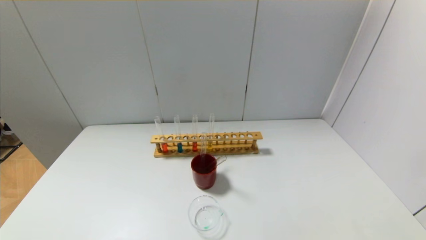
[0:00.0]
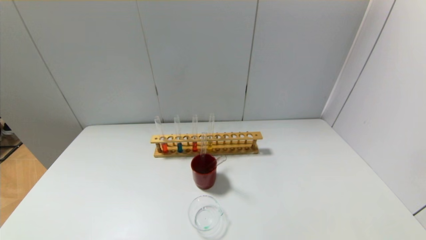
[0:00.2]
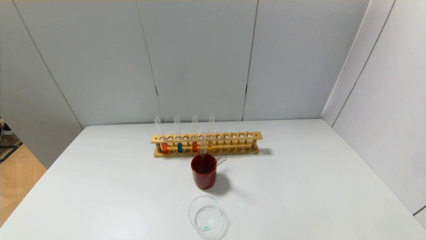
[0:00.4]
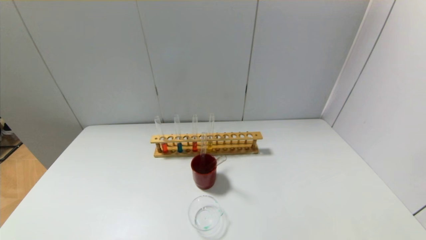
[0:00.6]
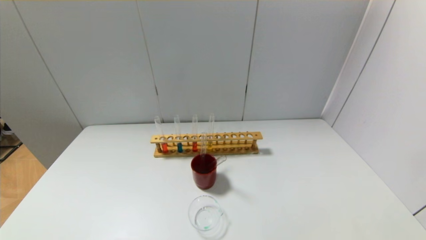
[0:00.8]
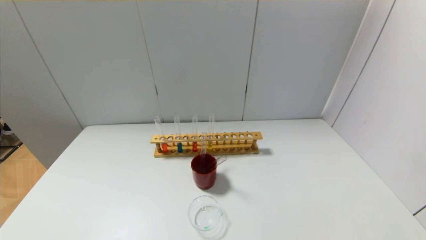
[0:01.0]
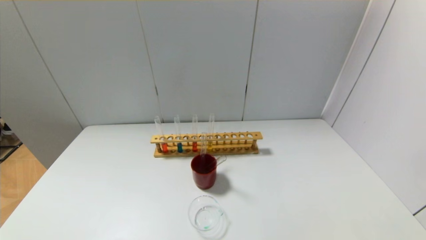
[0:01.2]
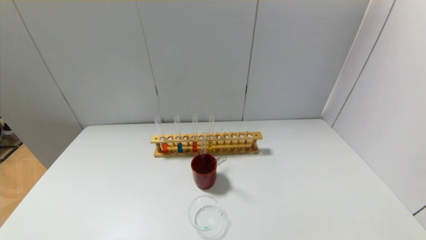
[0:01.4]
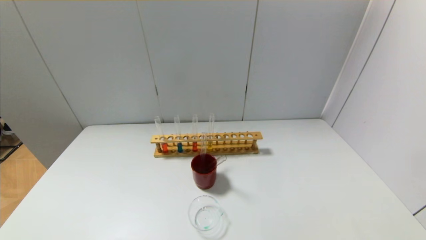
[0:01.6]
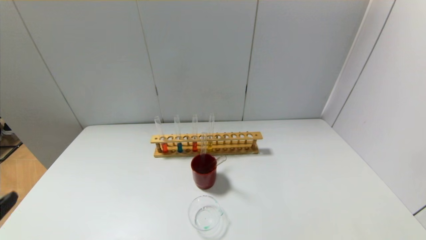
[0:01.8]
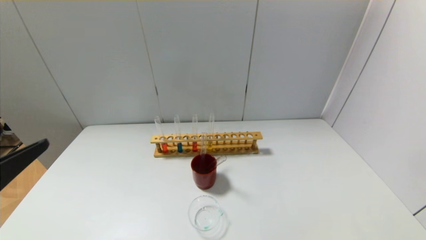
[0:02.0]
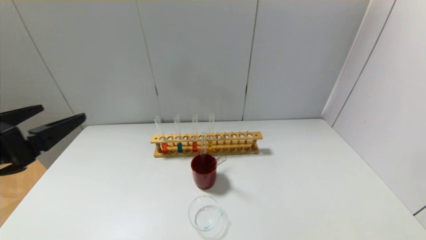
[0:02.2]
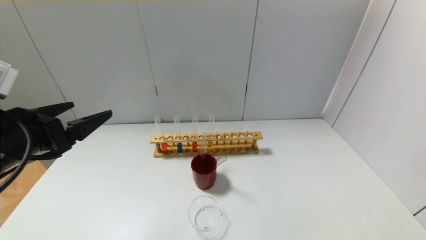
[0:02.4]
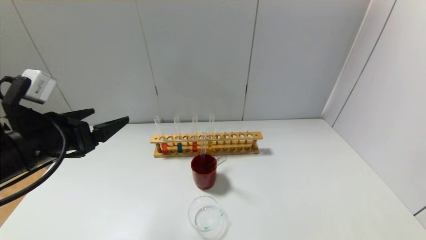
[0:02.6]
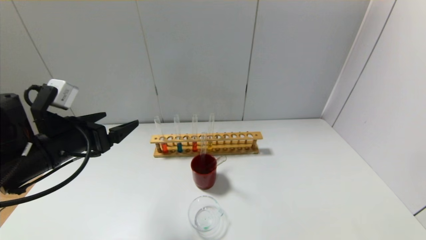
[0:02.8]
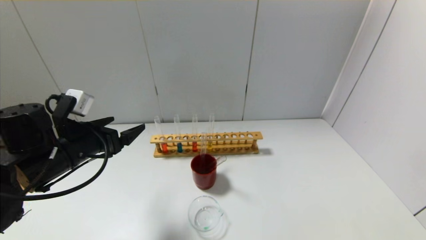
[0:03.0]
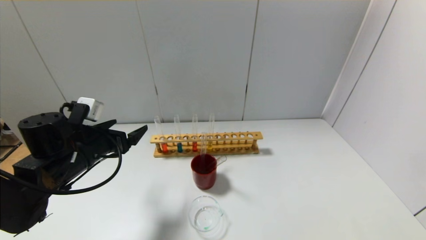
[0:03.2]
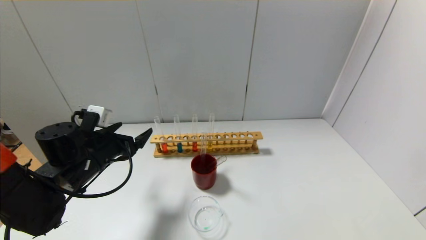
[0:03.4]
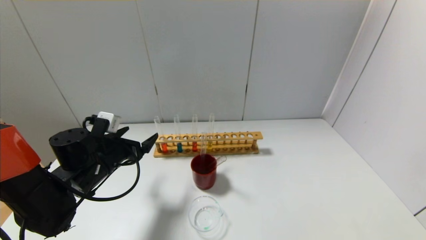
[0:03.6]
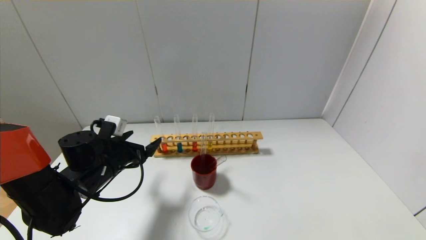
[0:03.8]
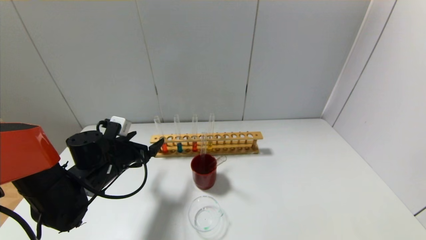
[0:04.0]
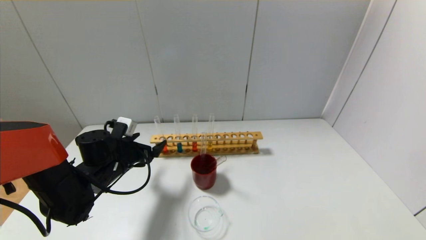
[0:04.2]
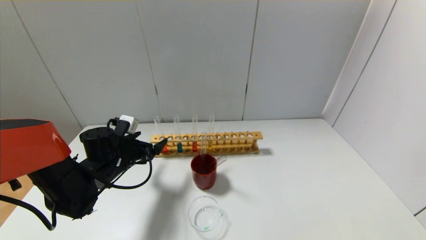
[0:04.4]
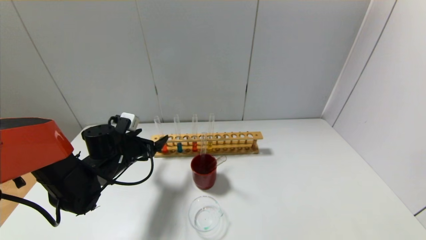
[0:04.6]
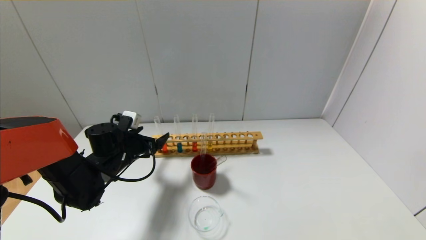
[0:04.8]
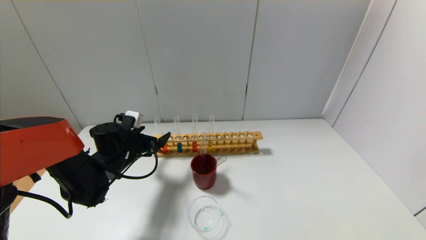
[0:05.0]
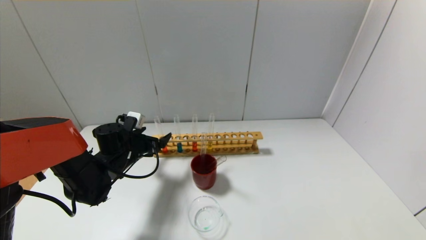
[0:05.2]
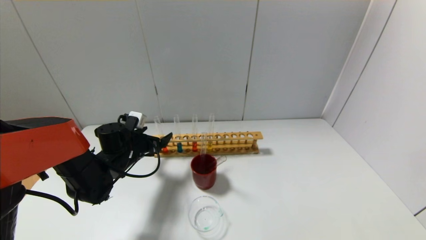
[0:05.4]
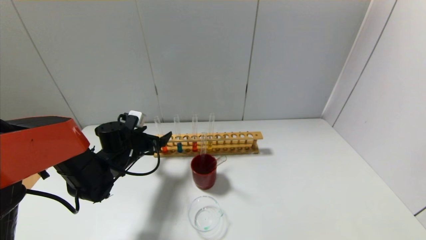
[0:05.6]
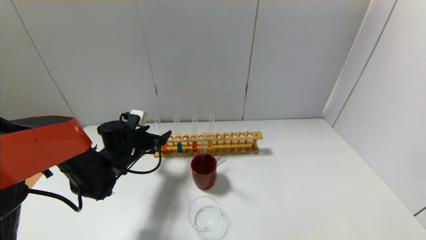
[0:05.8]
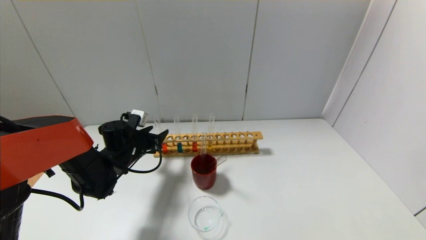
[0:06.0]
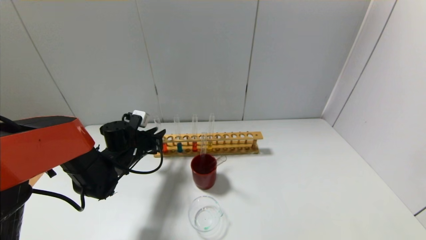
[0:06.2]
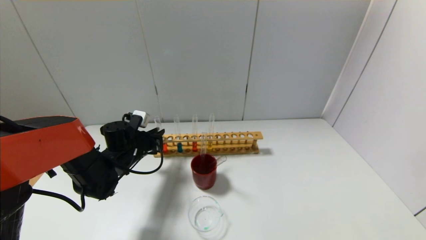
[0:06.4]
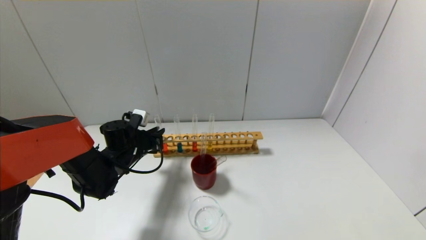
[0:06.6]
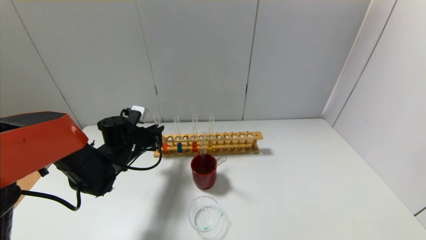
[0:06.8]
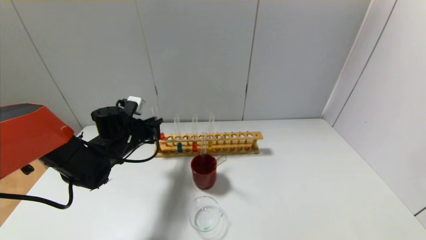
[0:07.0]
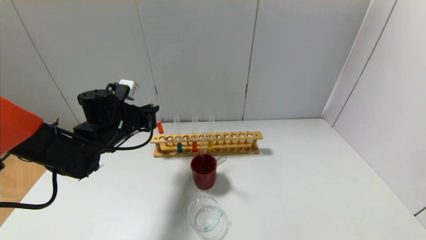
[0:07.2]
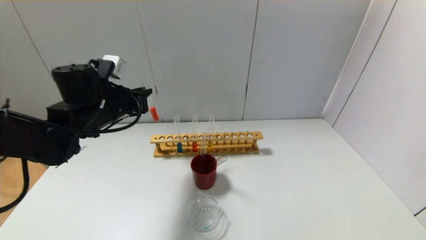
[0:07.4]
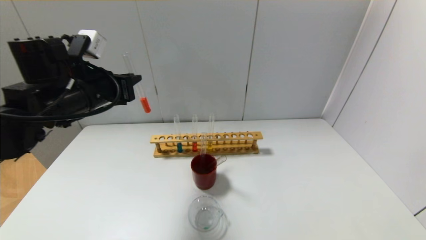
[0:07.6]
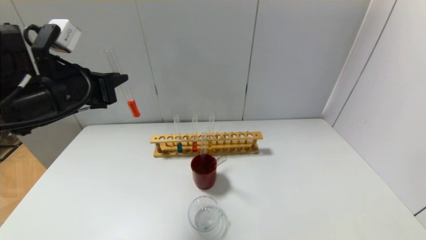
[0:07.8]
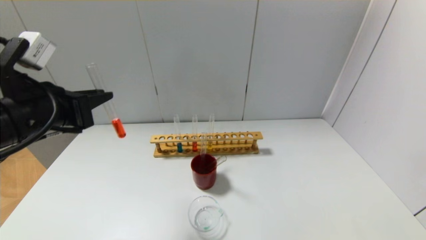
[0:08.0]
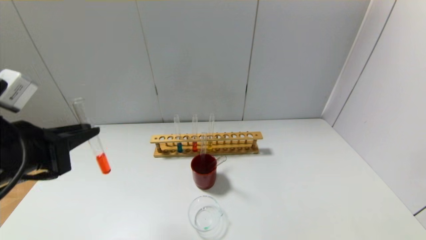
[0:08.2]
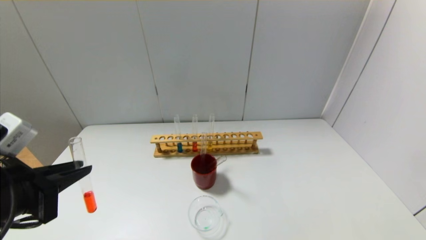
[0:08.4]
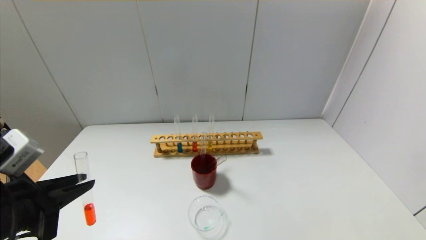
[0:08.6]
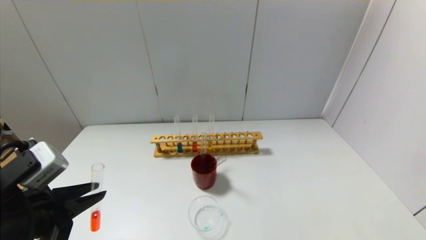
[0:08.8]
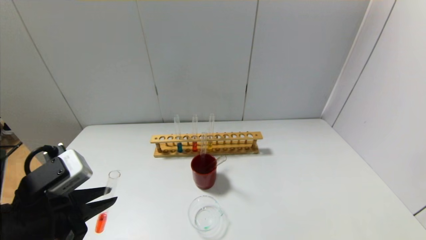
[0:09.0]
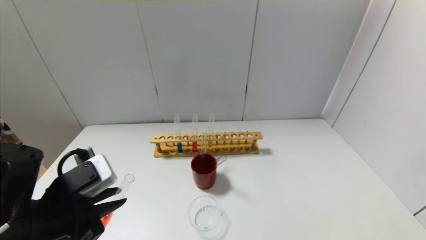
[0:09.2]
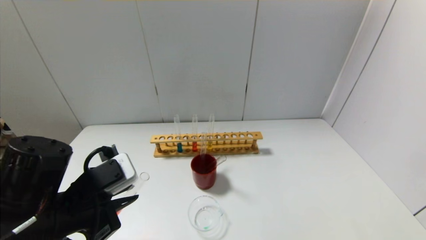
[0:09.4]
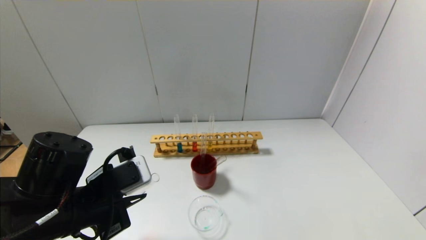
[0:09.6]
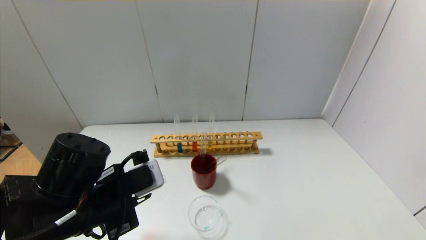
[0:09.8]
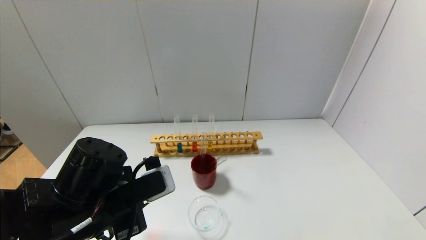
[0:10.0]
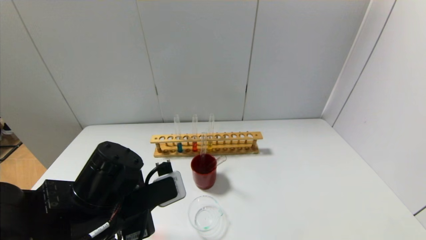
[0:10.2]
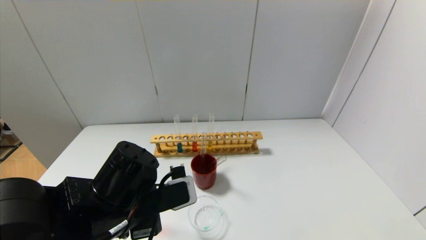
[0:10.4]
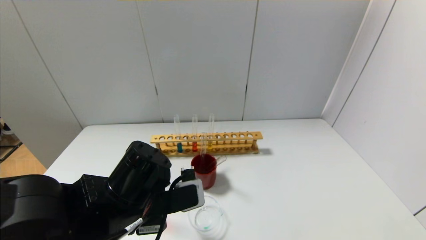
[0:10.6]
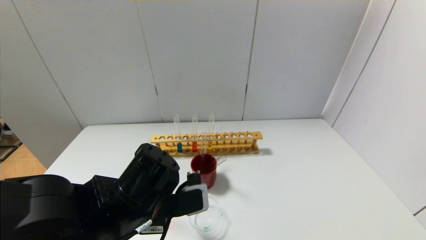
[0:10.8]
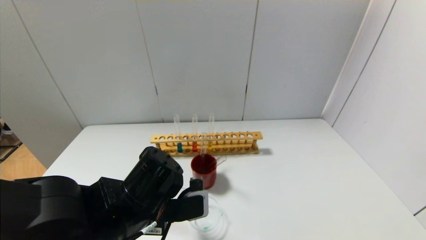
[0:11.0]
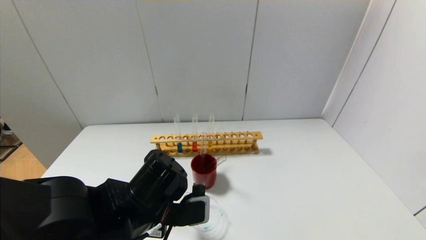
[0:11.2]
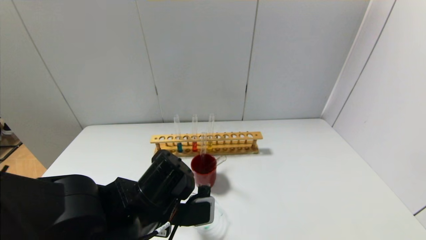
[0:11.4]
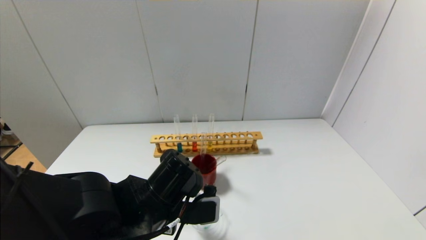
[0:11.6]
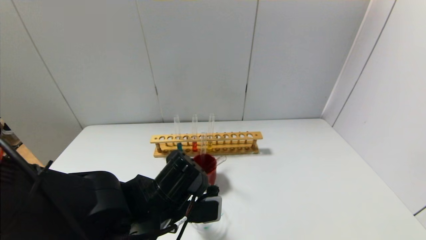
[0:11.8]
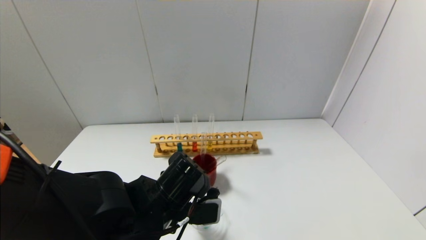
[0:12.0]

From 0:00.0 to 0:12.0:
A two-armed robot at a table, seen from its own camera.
Step, from 0:00.0 to 0:06.6: Grasp the red reagent with the left gripper.
From 0:01.6 to 0:03.0: The left gripper travels forward by some 25 cm.
From 0:03.0 to 0:04.4: The left gripper moves downward and forward, approximately 10 cm.
From 0:04.4 to 0:06.0: The left gripper closes up.
From 0:06.0 to 0:07.6: The left gripper is displaced upward by some 20 cm, and closes up.
From 0:07.6 to 0:09.0: The left gripper shifts roughly 20 cm backward and downward.
From 0:09.0 to 0:10.4: The left gripper is displaced to the right by about 10 cm.
From 0:10.4 to 0:12.0: The left gripper shifts by approximately 5 cm.

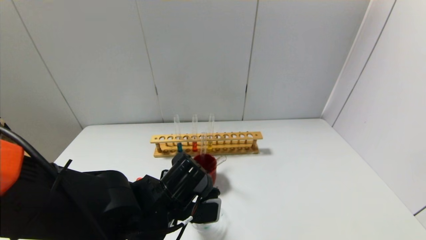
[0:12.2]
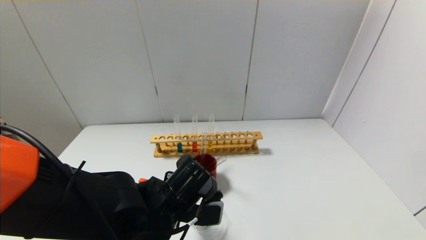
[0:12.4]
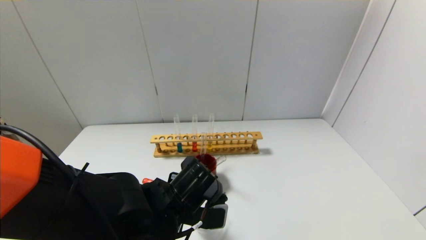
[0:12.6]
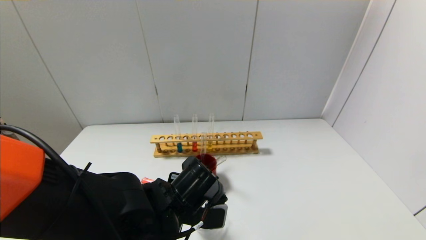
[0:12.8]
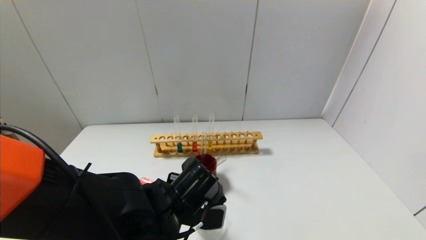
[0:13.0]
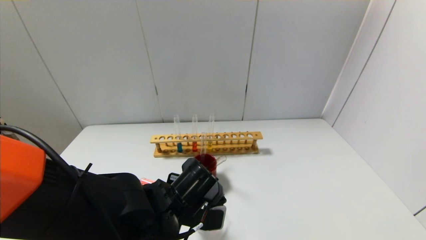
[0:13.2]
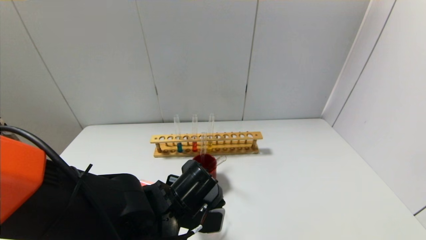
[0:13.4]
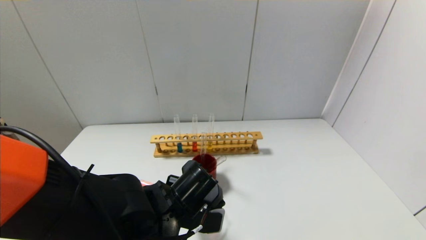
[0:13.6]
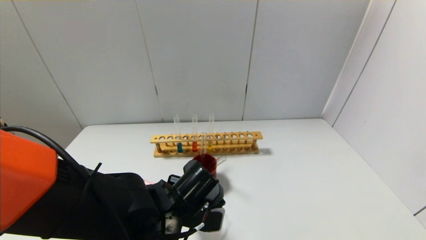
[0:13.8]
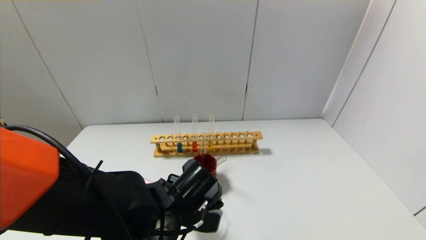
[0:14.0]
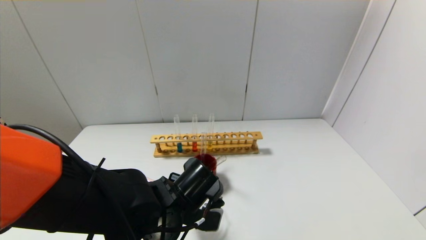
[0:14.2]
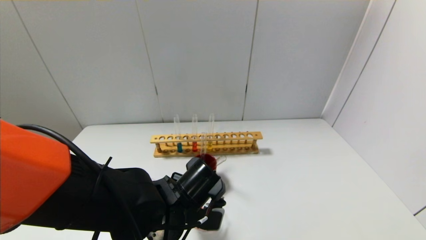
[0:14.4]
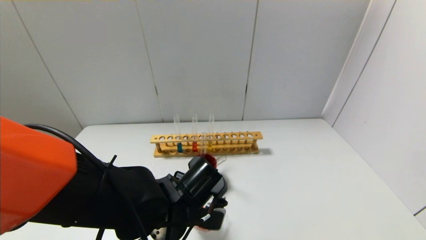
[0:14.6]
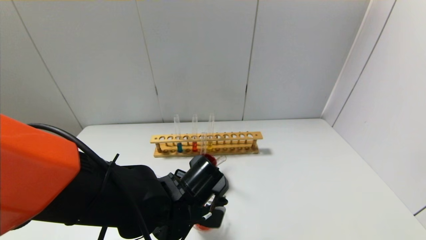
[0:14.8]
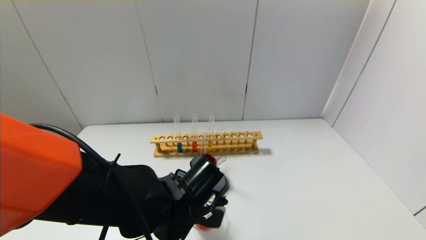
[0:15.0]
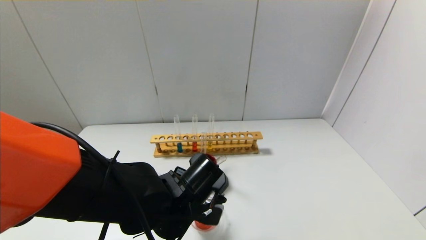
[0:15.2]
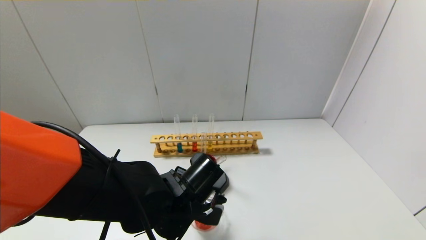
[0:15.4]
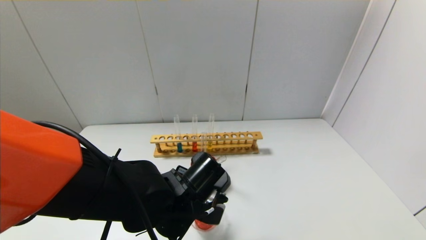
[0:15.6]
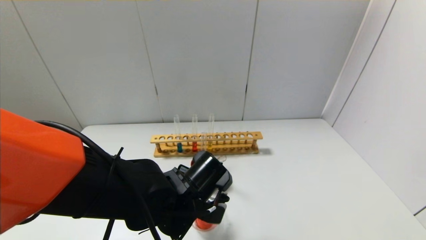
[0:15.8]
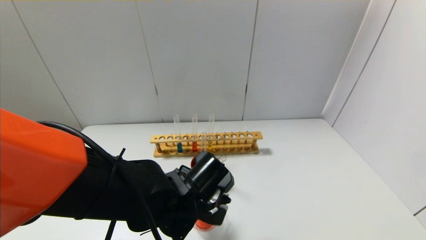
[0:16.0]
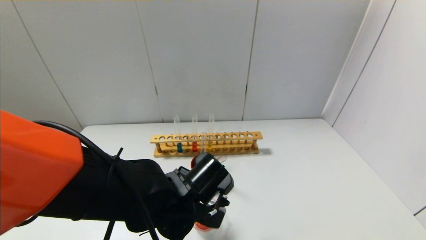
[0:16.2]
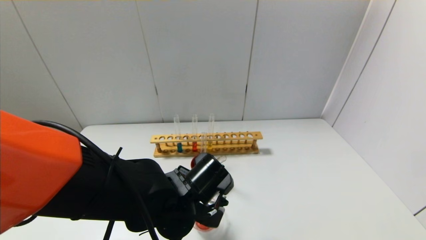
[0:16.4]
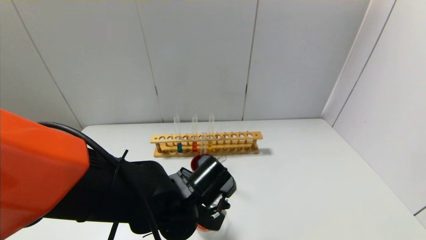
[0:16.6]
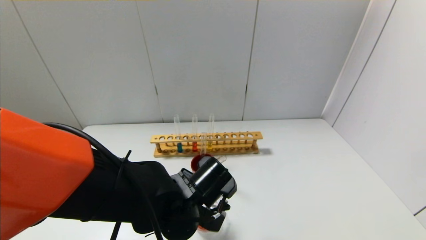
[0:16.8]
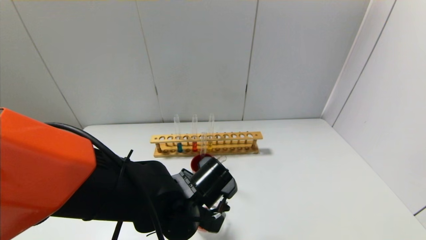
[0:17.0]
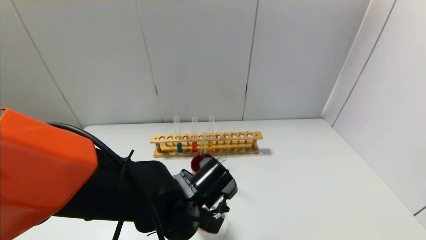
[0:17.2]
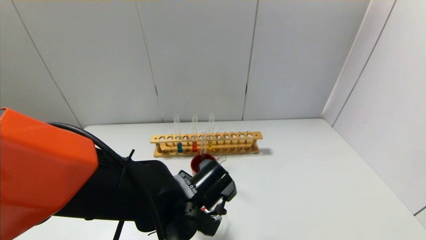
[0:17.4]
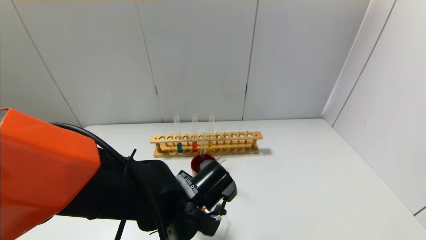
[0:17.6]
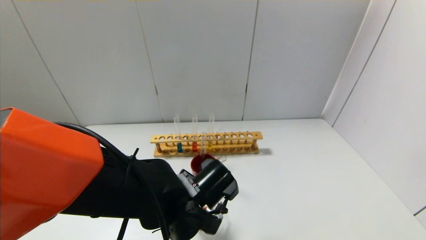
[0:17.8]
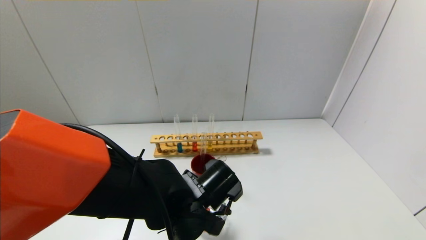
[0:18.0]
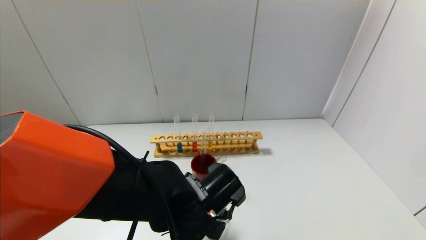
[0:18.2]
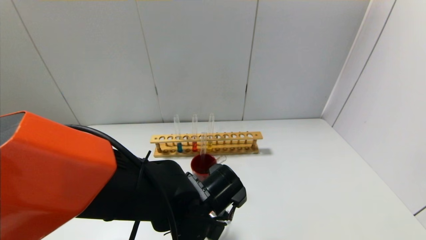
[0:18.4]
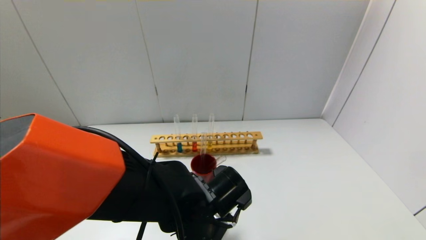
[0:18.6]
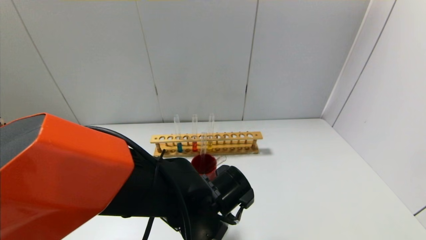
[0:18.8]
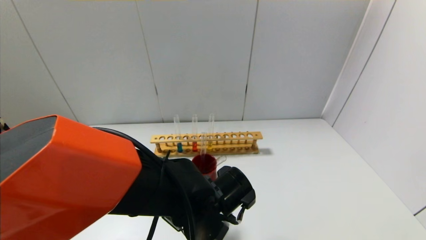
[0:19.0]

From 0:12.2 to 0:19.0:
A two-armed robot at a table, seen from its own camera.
From 0:12.2 to 0:16.2: The grippers move only a little.
From 0:16.2 to 0:19.0: There are only small adjustments of the grippers.
